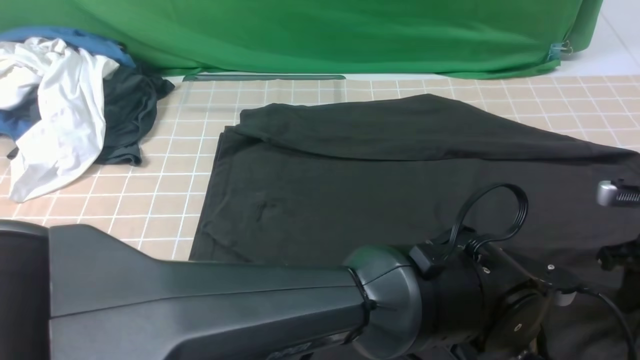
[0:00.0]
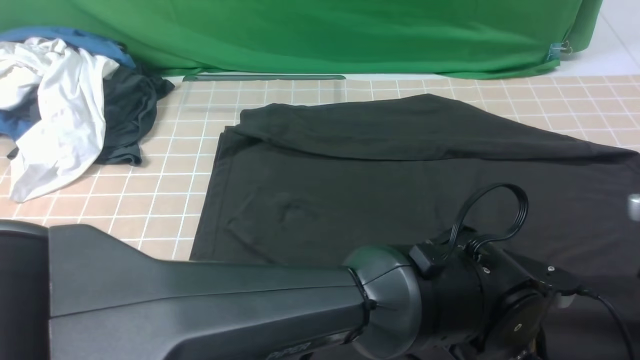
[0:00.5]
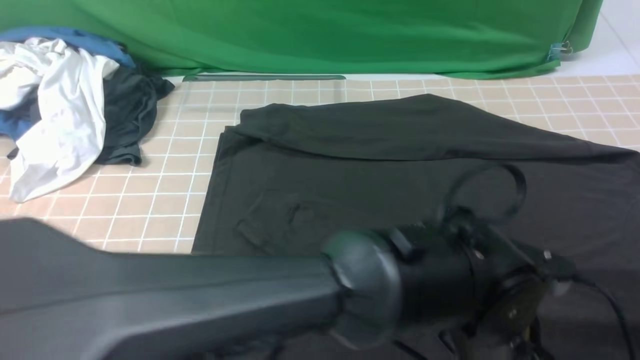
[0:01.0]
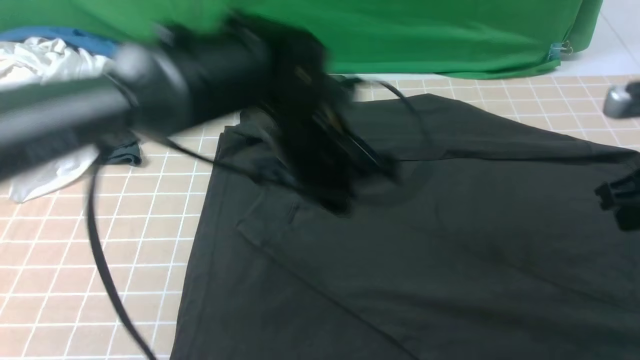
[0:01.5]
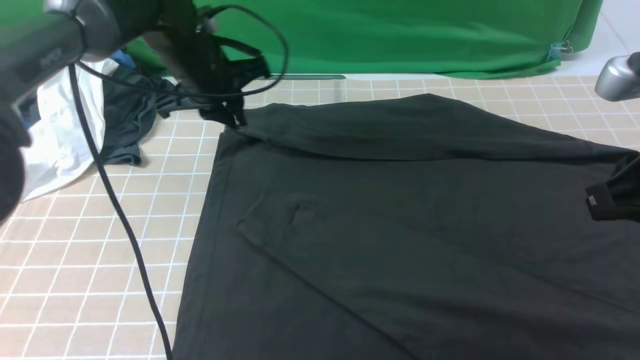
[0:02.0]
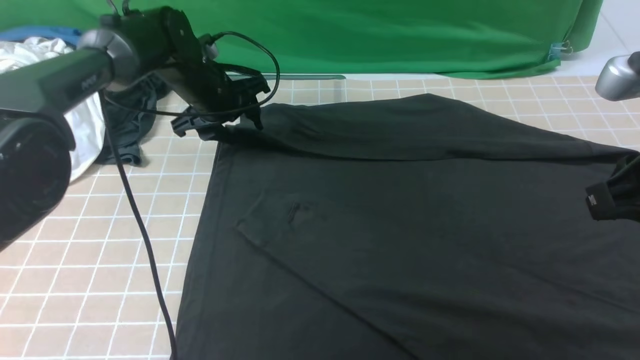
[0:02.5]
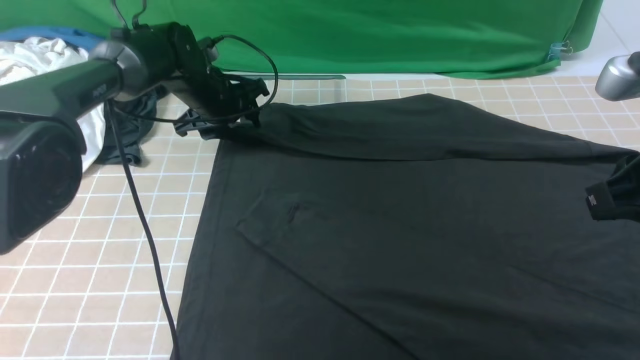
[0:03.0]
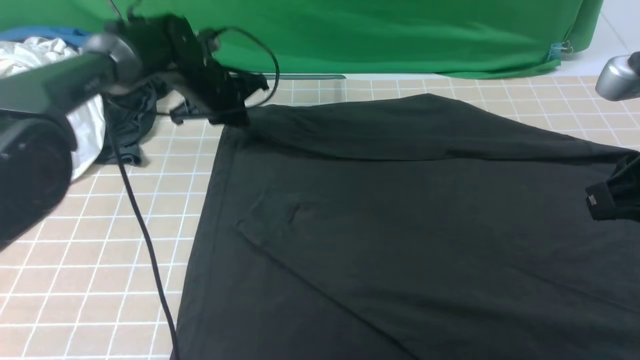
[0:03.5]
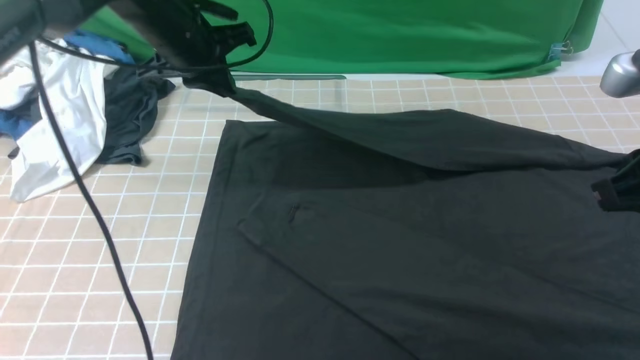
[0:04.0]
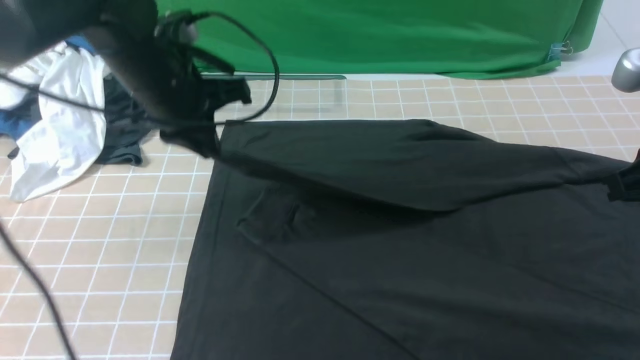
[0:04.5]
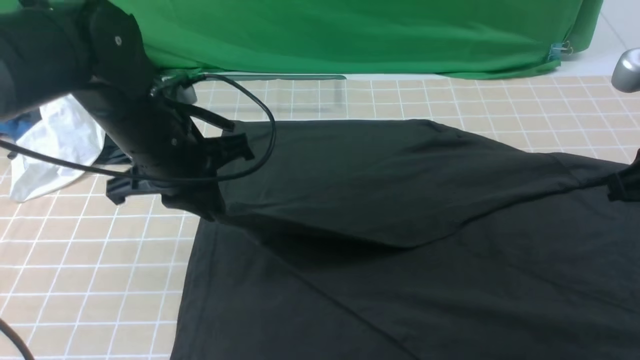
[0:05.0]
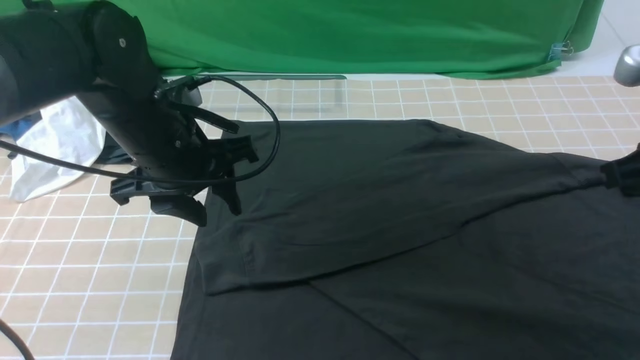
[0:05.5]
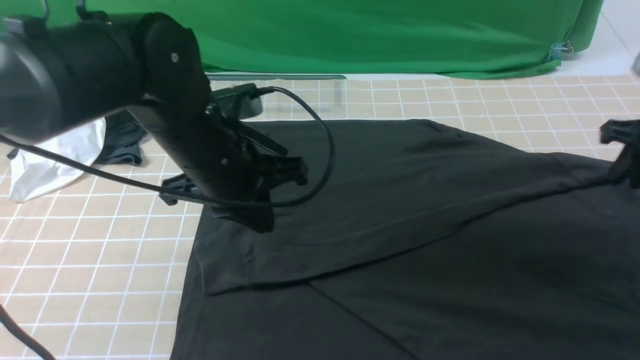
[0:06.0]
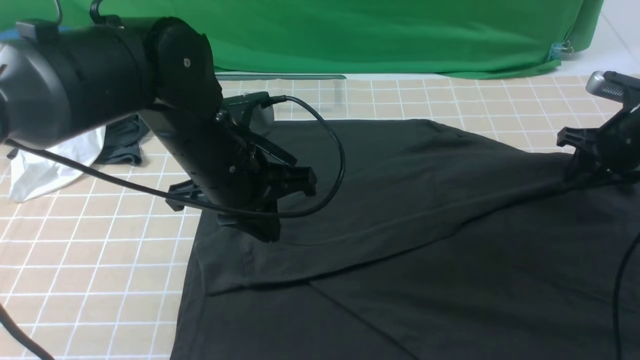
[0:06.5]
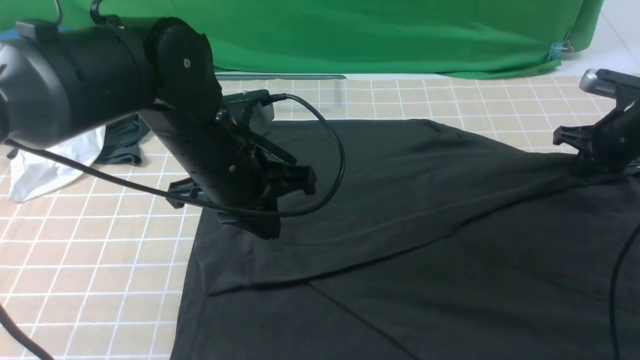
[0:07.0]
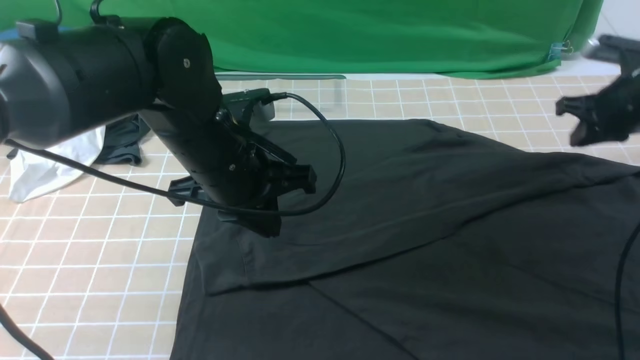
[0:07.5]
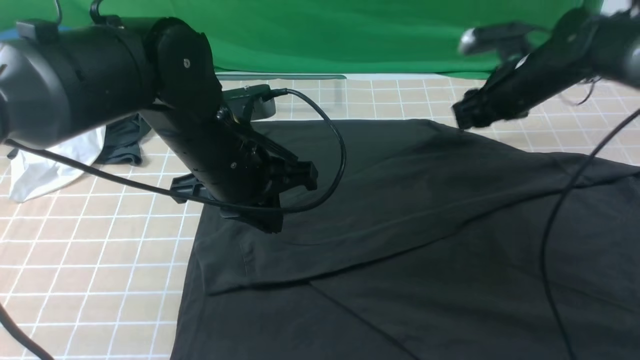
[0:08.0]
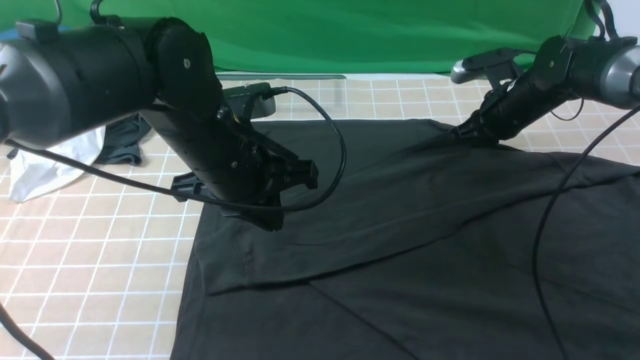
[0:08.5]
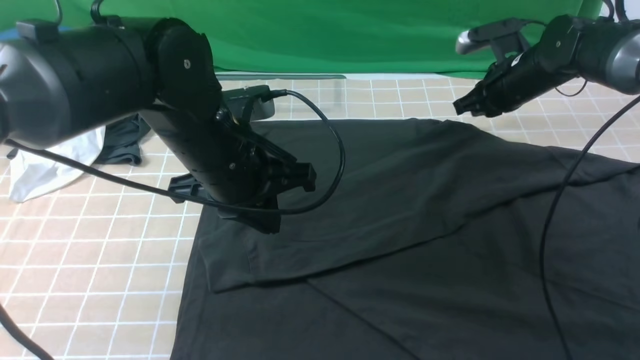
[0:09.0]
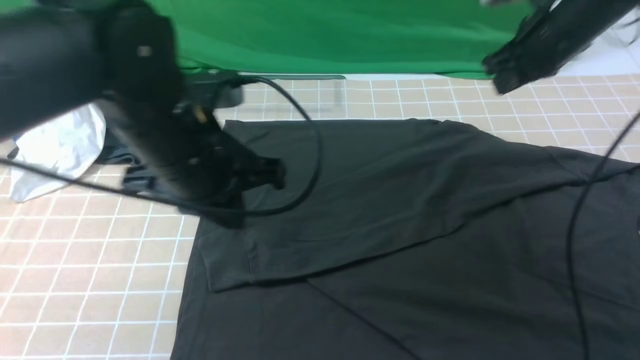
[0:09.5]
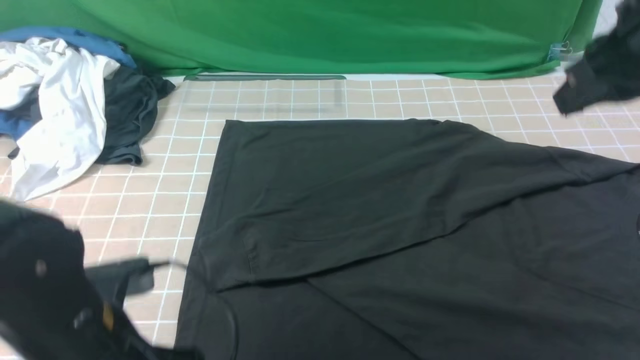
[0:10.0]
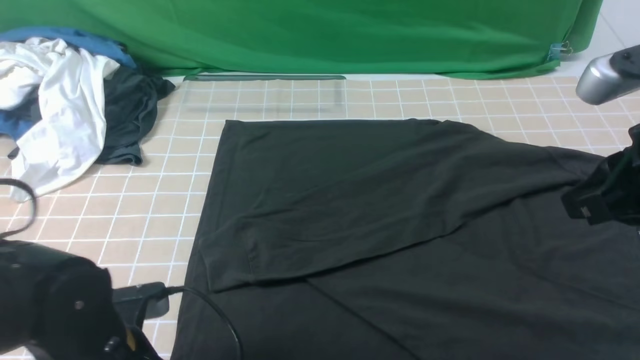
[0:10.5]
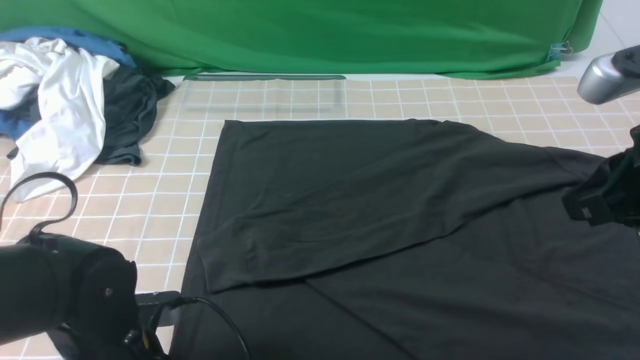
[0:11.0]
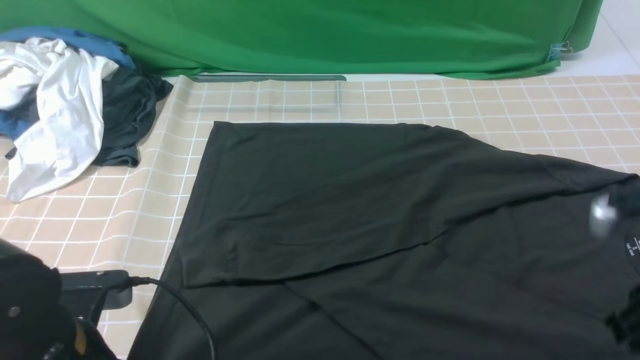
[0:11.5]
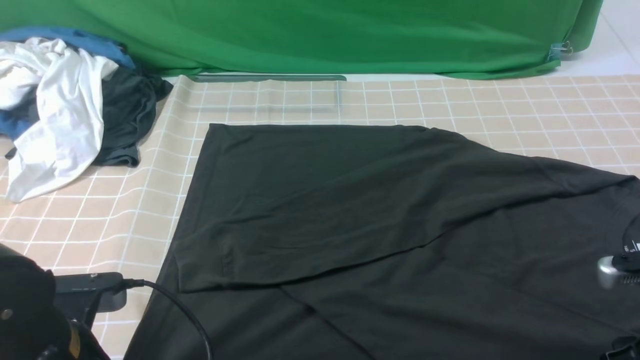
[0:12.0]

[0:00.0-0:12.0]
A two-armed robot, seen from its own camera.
Step, 0:00.0 to 0:03.0: use the left arm to clamp the cuff farthest from it.
Step, 0:03.5 to 0:05.0: use the left arm to drag and drop the cuff onto the cuff closest to the left arm.
0:00.0 to 0:02.0: The right gripper moves upward and to the left, approximately 20 cm, and closes up; the left gripper heads to the left and forward, covering approximately 40 cm.
0:02.0 to 0:04.0: The left gripper opens, then closes once more.
0:04.0 to 0:06.0: The right gripper heads forward, to the right and downward, covering about 15 cm, and opens its fingers. The left gripper shifts approximately 15 cm backward and to the right, and opens and closes again.
0:06.0 to 0:08.0: The right gripper moves forward, to the left and downward, some 20 cm.
0:08.0 to 0:10.0: The right gripper heads backward and upward, covering approximately 25 cm, and closes, while the left gripper heads backward and to the left, covering about 15 cm, and opens up.
0:10.0 to 0:12.0: The left gripper opens and closes again. Meanwhile the right gripper heads downward and backward, covering roughly 25 cm, and opens.

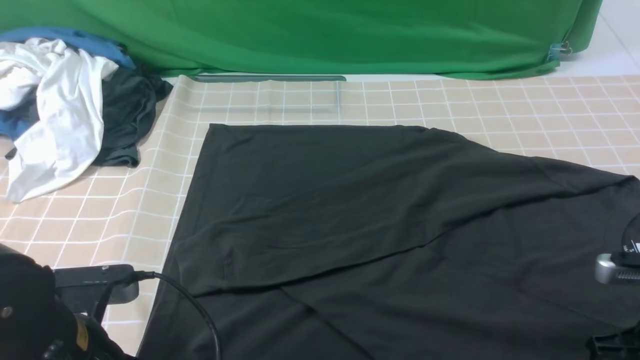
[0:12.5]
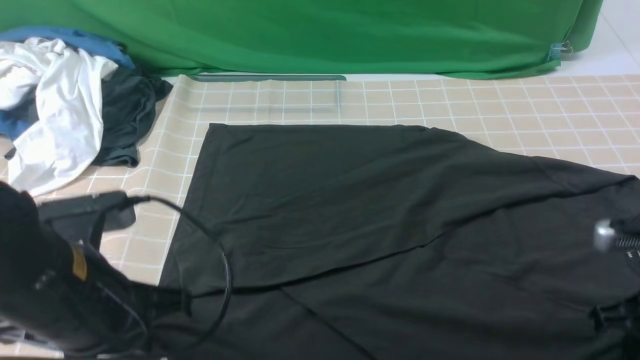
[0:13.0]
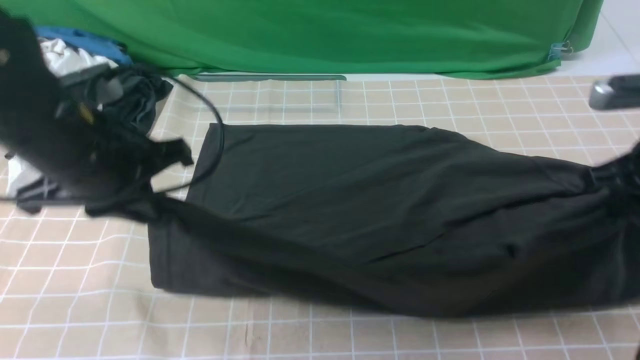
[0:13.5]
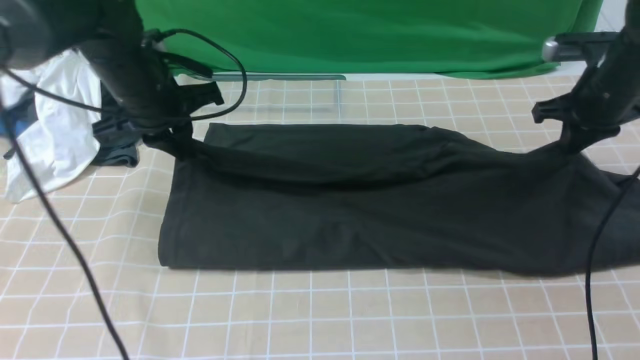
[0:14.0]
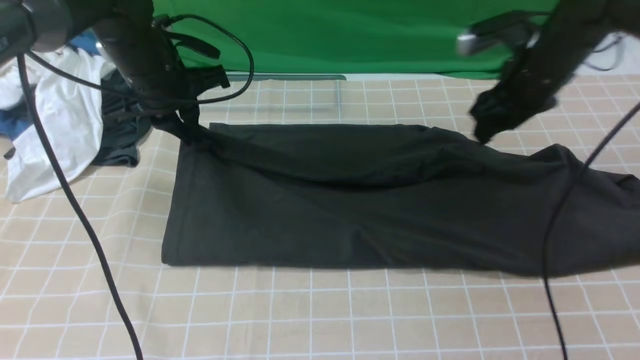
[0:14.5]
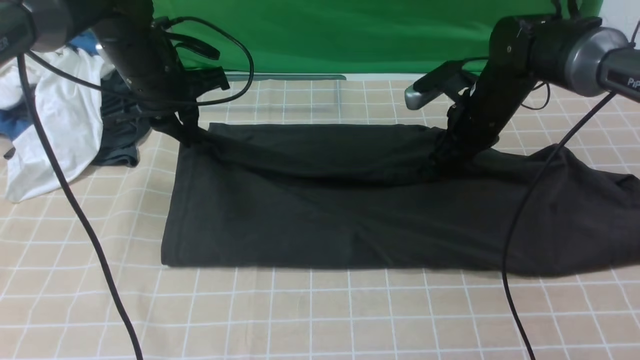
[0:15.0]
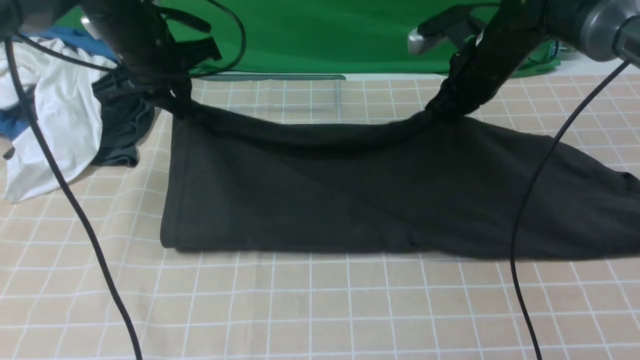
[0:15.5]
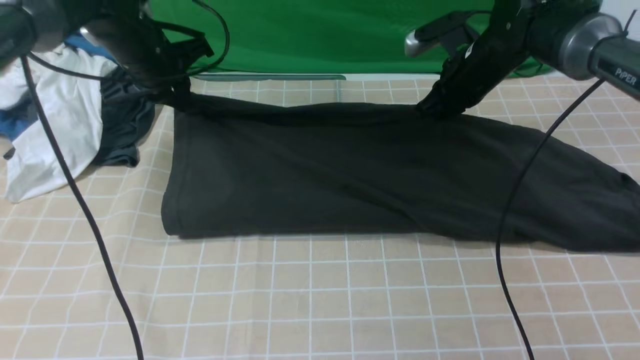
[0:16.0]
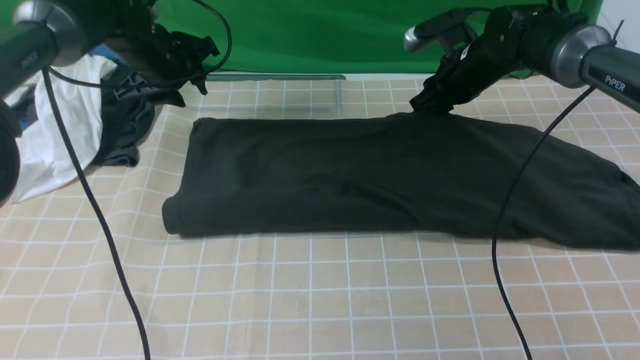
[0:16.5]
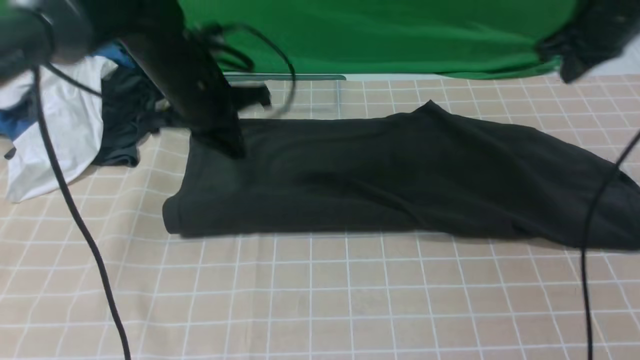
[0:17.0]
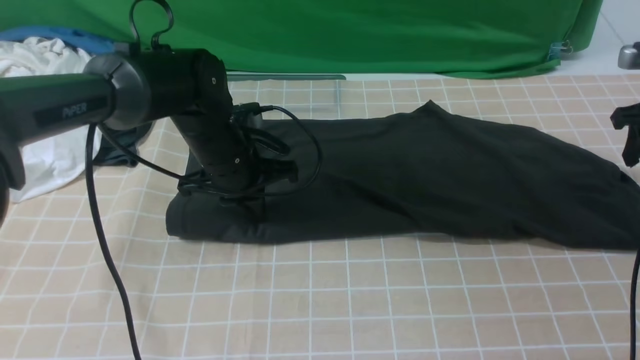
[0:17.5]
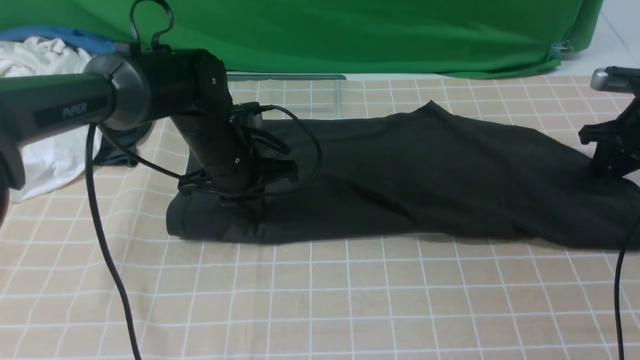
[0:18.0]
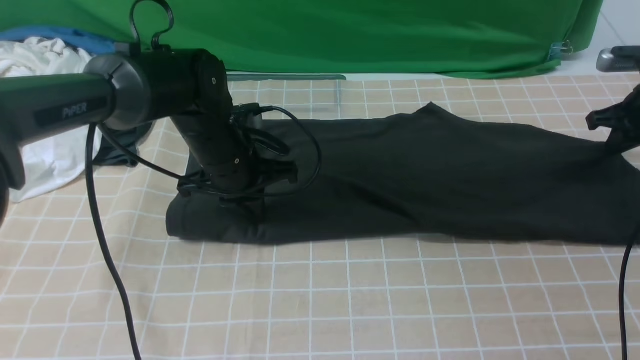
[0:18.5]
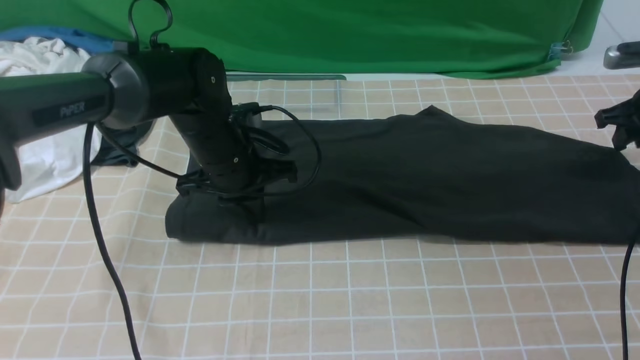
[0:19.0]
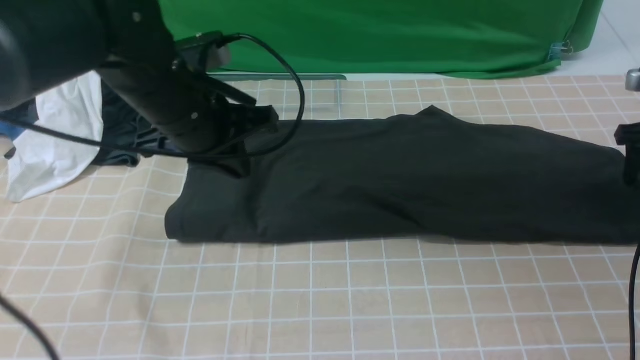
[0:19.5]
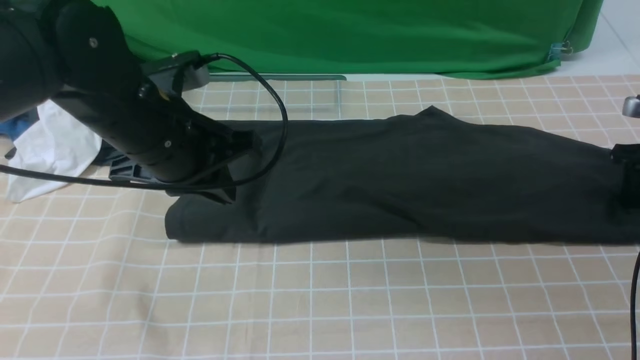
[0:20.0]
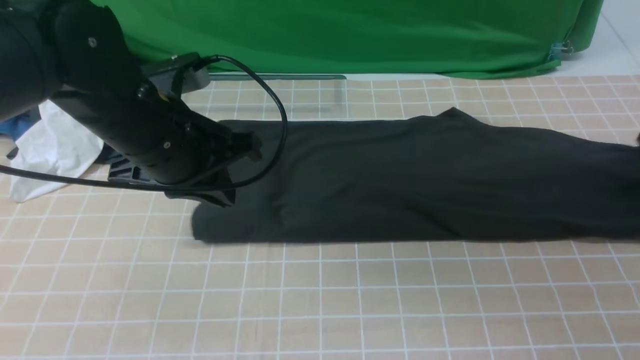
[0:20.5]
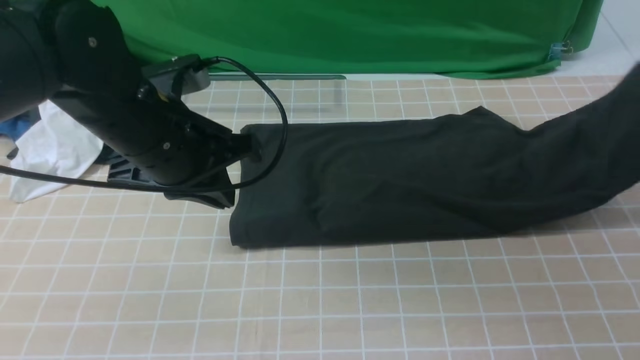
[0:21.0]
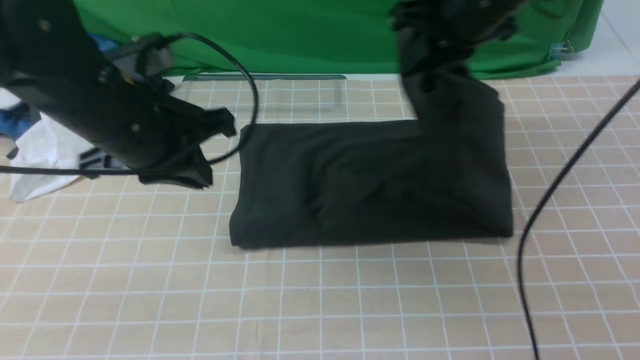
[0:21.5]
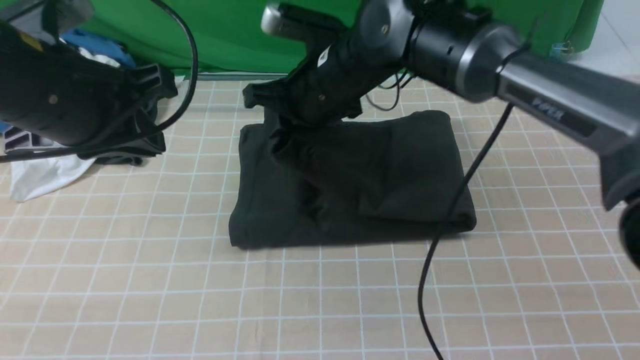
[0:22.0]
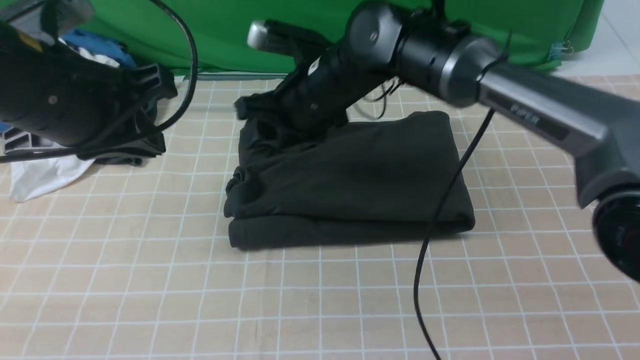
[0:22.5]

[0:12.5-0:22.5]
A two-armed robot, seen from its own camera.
Step, 0:13.0 to 0:16.5: use both arms to drag the lower edge of the fabric forward and fold it over the upper edge.
Step, 0:17.0 to 0:20.0: use the right arm to clamp the right edge of the fabric.
Step, 0:20.5 to 0:22.0: use the right arm to drag the right edge of the fabric to the left and folds it over the left edge.
0:12.5 to 0:14.5: The grippers both shift forward by approximately 30 cm. The right gripper closes, then opens again.
0:14.5 to 0:16.5: The grippers both shift forward by approximately 5 cm. The left gripper opens its fingers. The right gripper closes.
0:16.5 to 0:18.5: The left gripper travels backward, to the right and downward by some 15 cm, and closes up; the right gripper shifts approximately 20 cm to the right, and closes its fingers.
0:18.5 to 0:20.5: The left gripper heads upward and backward, covering about 15 cm. Meanwhile the right gripper moves some 5 cm, and opens and closes again.
0:20.5 to 0:22.5: The left gripper shifts roughly 10 cm upward and to the left, while the right gripper goes approximately 40 cm to the left, and opens its fingers.
